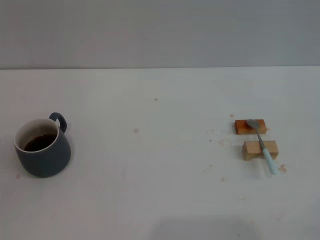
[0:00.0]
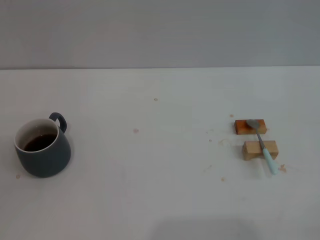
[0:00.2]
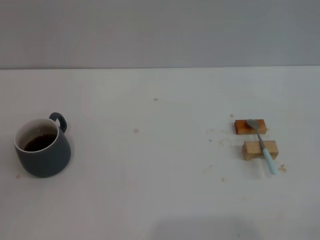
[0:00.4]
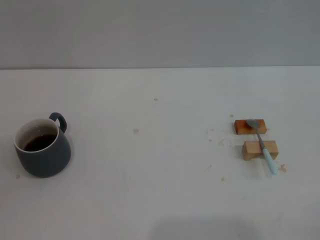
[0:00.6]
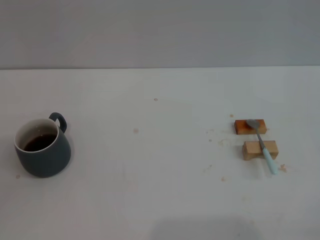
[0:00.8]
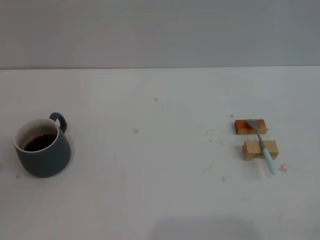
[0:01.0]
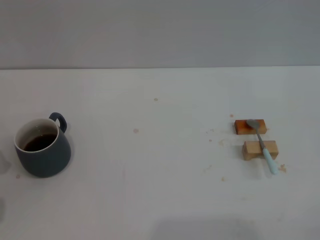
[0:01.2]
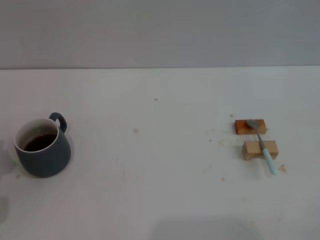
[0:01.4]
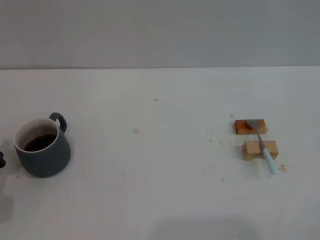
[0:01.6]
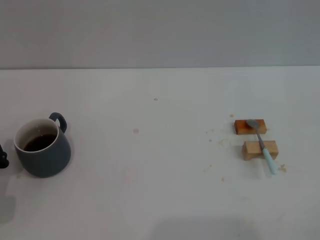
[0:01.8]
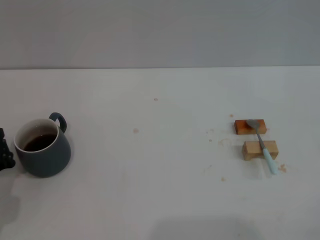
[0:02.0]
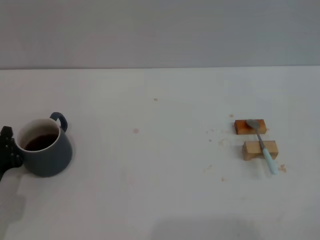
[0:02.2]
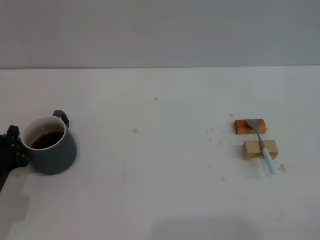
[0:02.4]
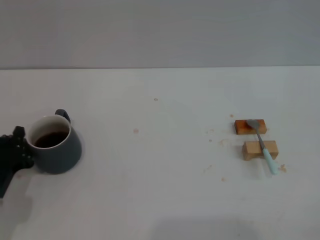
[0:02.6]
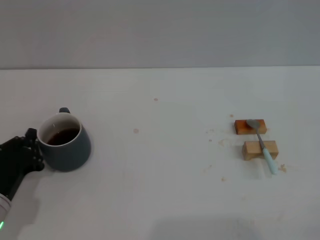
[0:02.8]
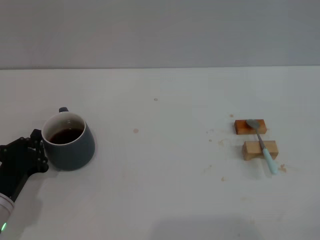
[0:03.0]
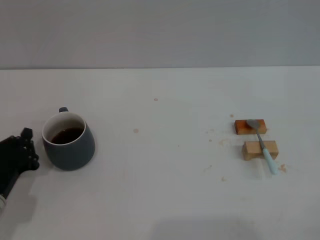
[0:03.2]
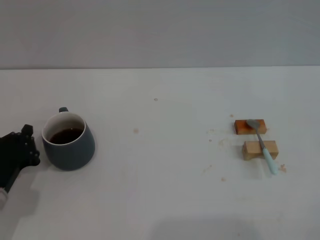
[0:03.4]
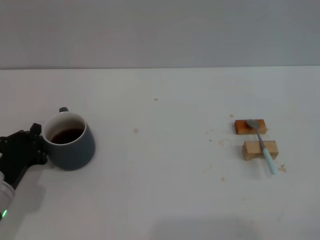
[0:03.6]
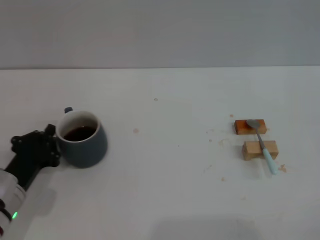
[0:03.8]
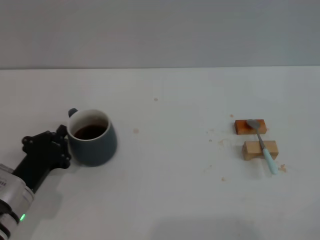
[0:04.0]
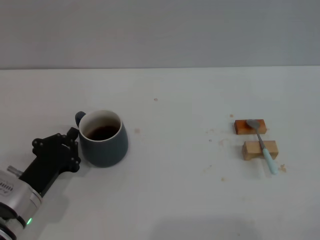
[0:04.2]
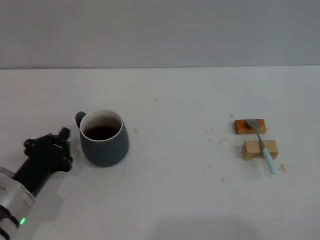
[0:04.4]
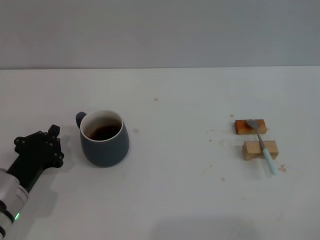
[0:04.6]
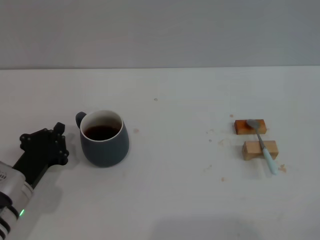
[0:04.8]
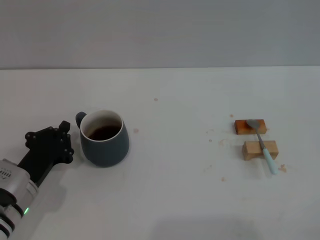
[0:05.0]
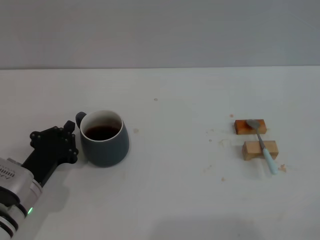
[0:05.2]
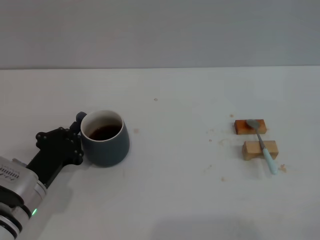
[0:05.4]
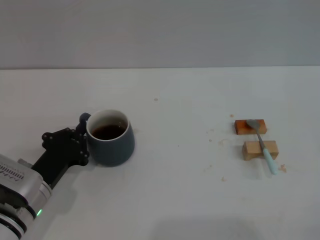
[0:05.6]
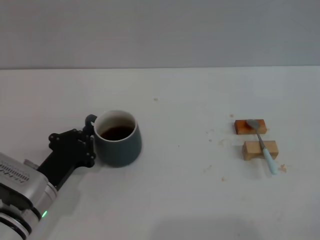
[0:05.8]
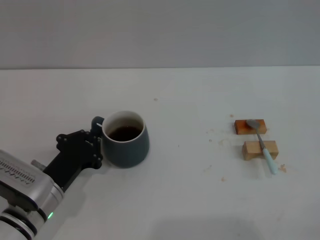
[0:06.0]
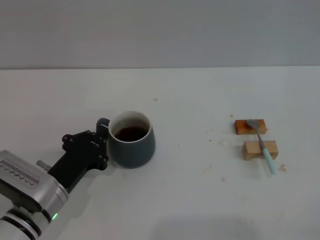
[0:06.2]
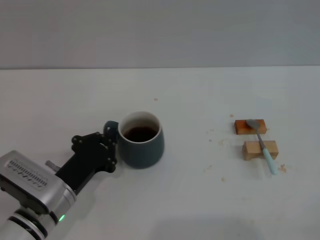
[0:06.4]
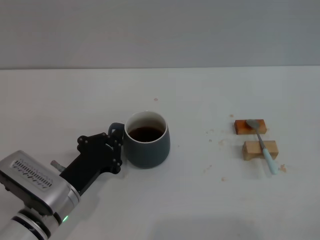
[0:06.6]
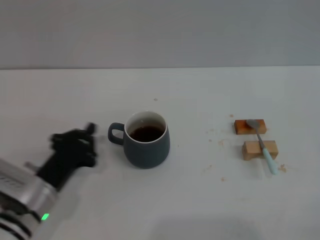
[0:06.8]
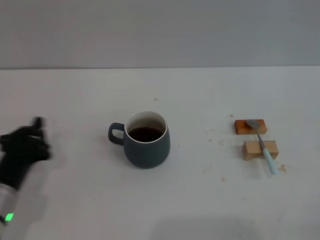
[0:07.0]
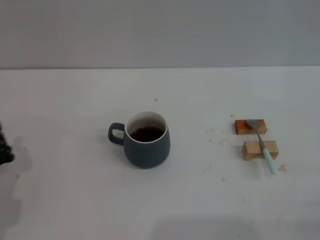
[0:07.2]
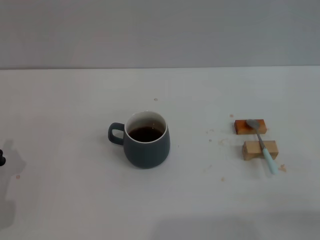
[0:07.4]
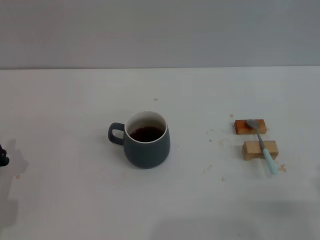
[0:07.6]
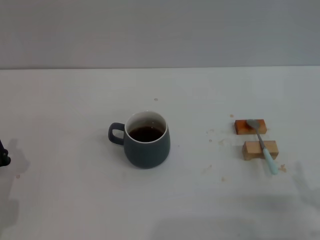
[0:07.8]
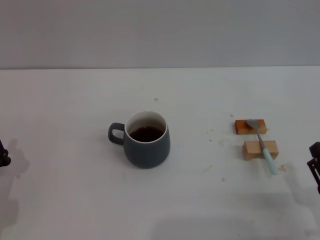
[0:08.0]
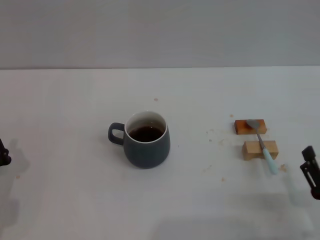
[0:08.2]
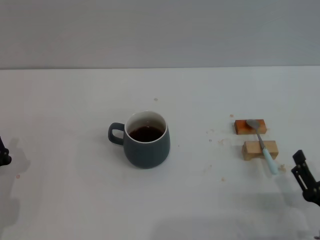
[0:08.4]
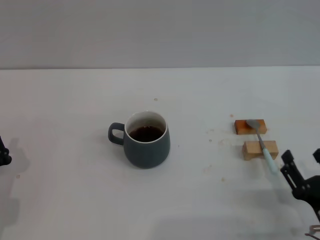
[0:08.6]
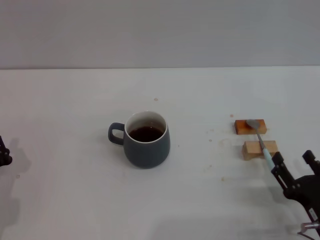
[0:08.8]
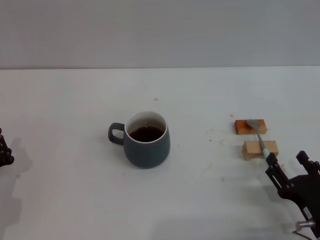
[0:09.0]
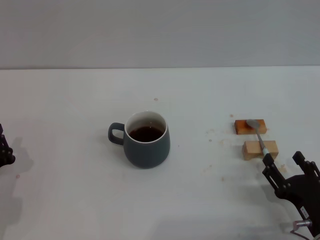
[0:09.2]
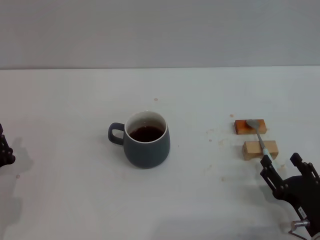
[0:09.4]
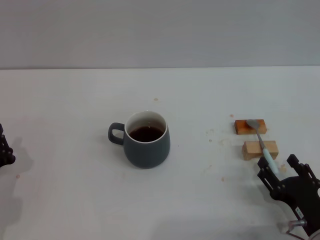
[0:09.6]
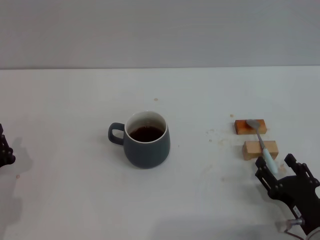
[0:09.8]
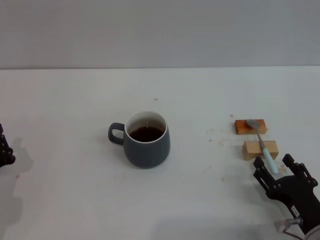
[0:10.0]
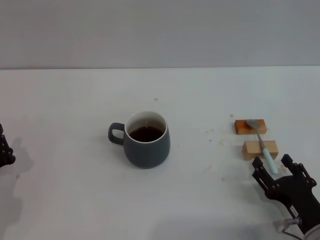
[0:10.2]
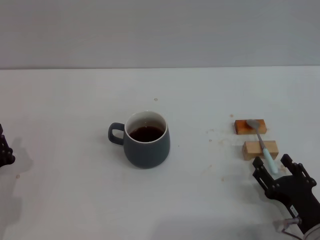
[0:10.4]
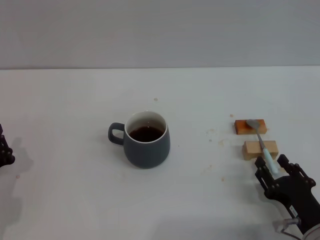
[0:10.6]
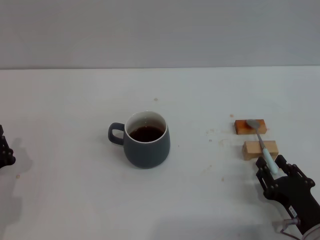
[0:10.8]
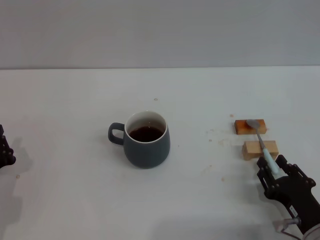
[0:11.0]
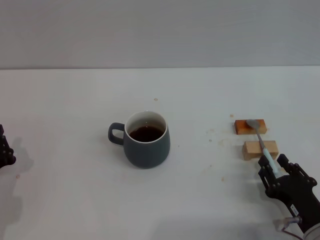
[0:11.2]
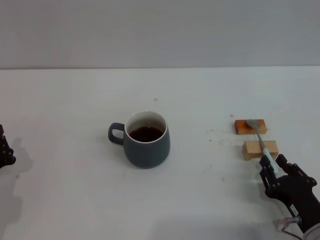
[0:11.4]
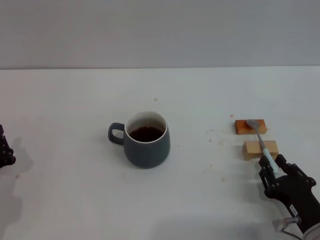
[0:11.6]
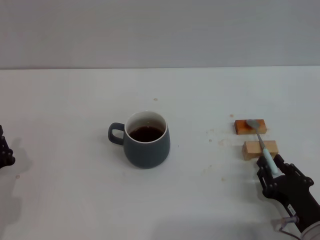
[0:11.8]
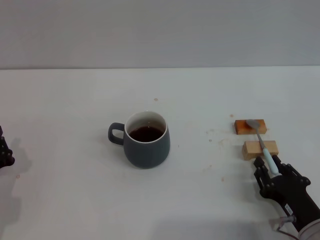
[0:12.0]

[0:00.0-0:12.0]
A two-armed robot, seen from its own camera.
Task of the whole recording: Move the grey cup to the center, lift the blue spoon, stir it three times in the cup, and put the spoon into the cup.
Step, 0:00.0 to 0:06.8: Move the cup with coffee to the center of view with the left gripper.
0:01.6 to 0:03.0: The grippers move only a little.
0:03.0 to 0:04.4: The grippers stay close to where they were, moving slightly.
0:04.4 to 0:06.0: The grippers make only small movements.
0:06.0 to 0:07.6: Both grippers move to the left, about 10 cm.
0:07.6 to 0:09.0: The right gripper changes place by roughly 5 cm.
0:09.0 to 0:10.4: The grippers stay close to where they were, moving slightly.
0:10.4 to 0:12.0: The right gripper closes.

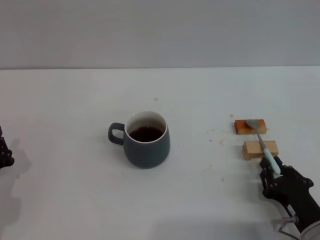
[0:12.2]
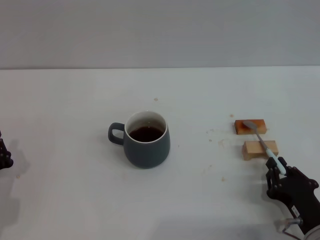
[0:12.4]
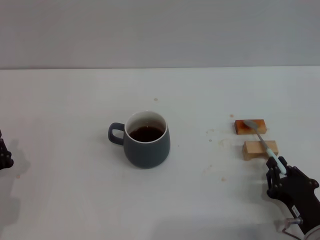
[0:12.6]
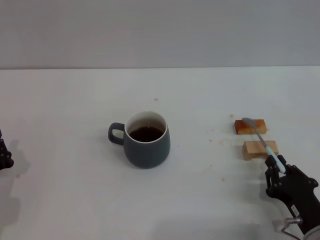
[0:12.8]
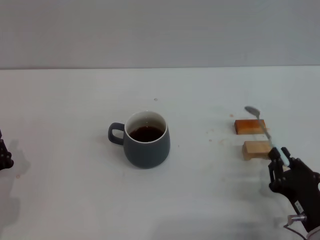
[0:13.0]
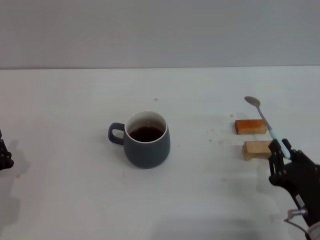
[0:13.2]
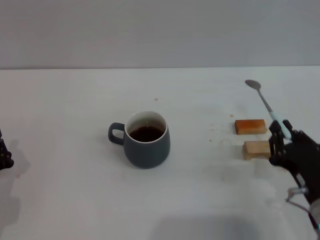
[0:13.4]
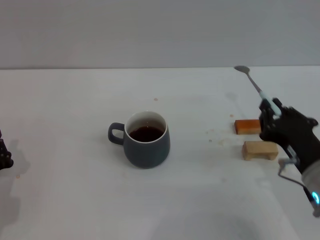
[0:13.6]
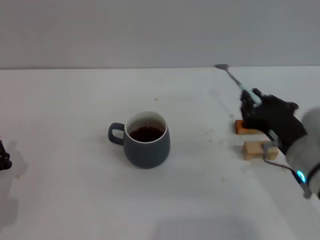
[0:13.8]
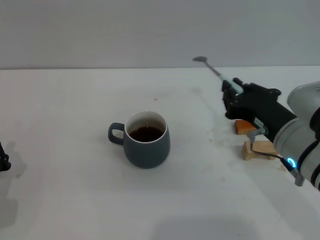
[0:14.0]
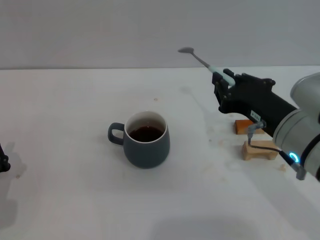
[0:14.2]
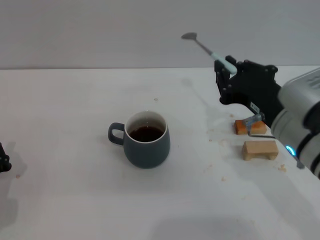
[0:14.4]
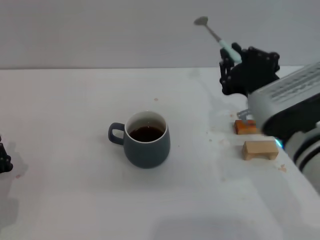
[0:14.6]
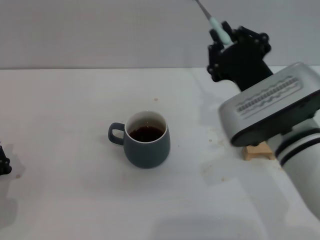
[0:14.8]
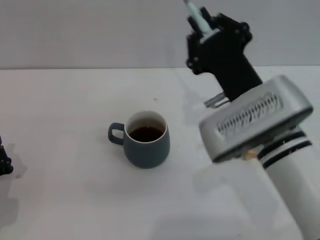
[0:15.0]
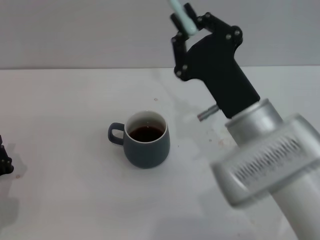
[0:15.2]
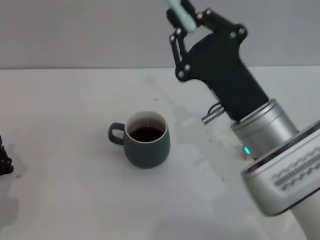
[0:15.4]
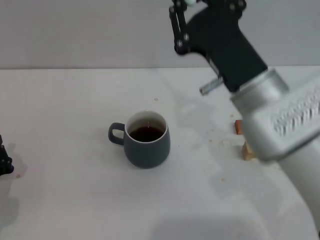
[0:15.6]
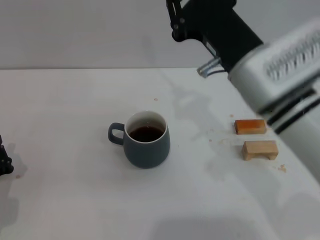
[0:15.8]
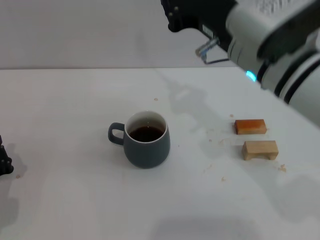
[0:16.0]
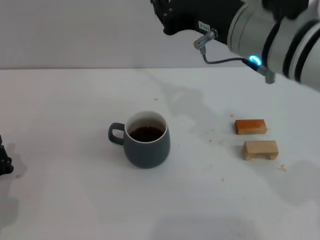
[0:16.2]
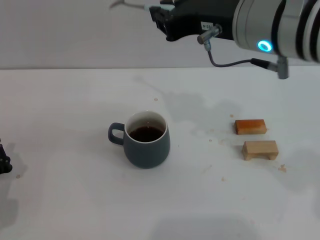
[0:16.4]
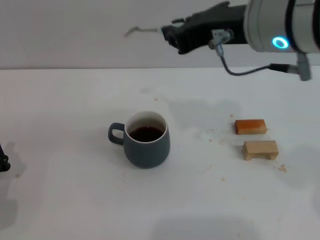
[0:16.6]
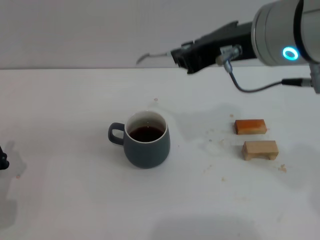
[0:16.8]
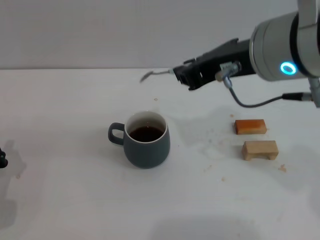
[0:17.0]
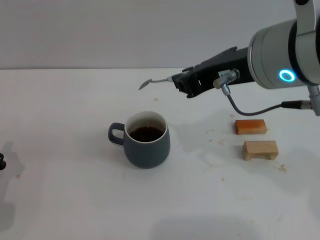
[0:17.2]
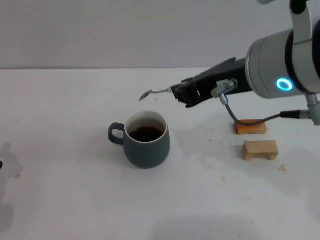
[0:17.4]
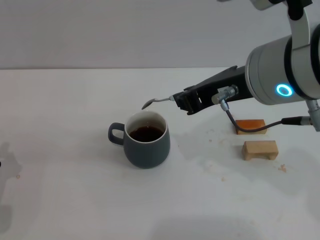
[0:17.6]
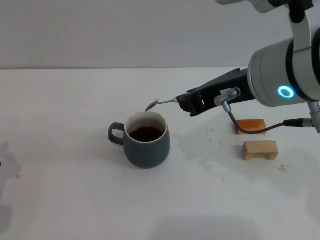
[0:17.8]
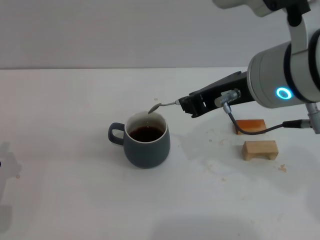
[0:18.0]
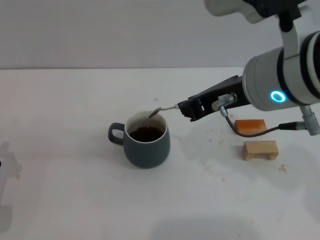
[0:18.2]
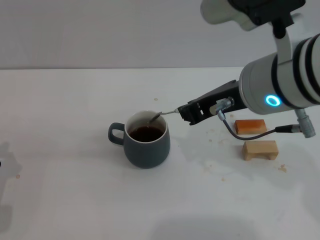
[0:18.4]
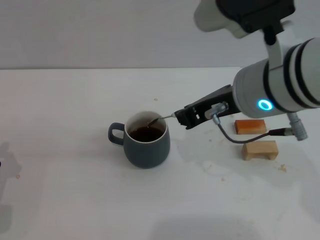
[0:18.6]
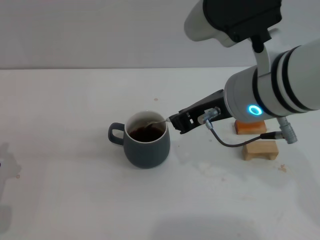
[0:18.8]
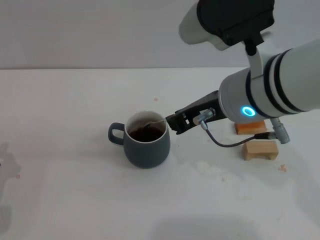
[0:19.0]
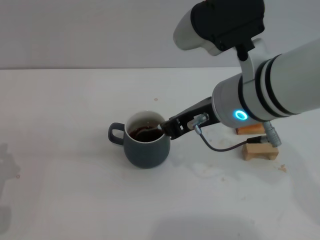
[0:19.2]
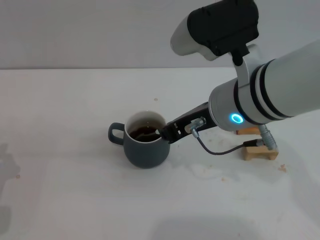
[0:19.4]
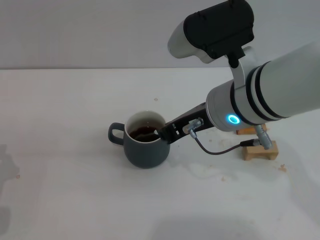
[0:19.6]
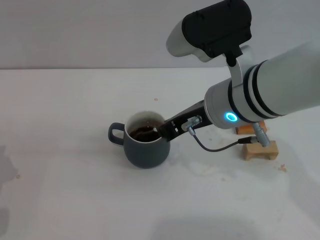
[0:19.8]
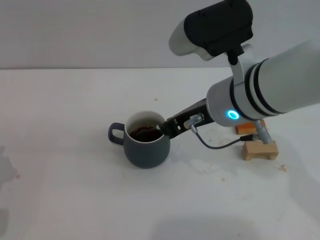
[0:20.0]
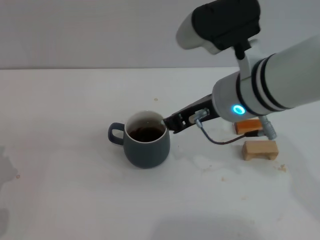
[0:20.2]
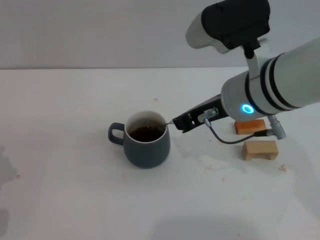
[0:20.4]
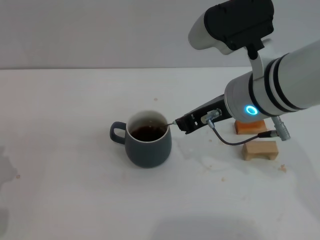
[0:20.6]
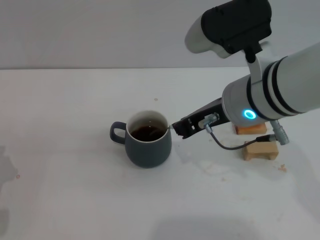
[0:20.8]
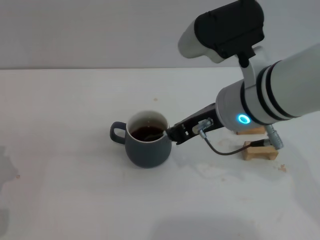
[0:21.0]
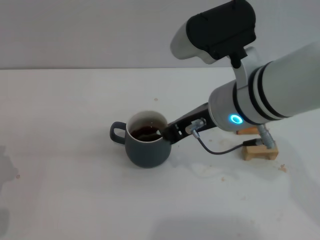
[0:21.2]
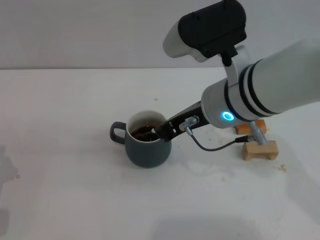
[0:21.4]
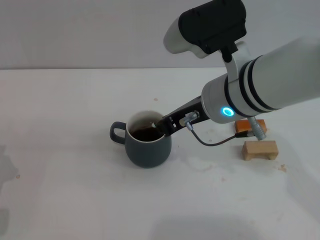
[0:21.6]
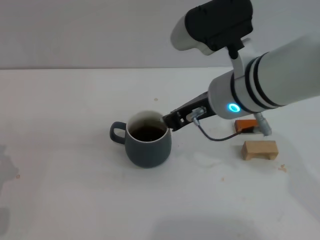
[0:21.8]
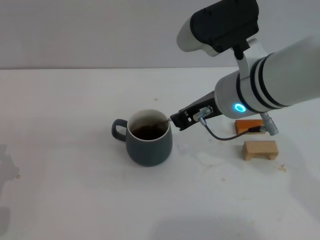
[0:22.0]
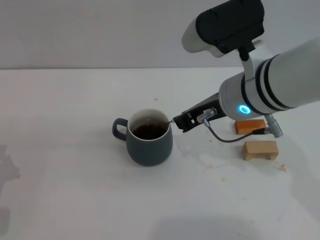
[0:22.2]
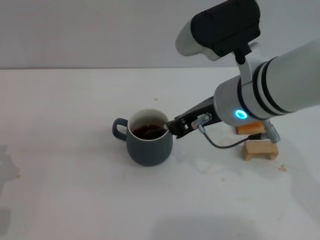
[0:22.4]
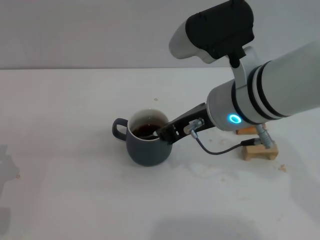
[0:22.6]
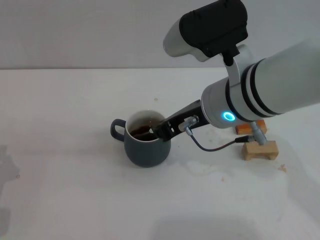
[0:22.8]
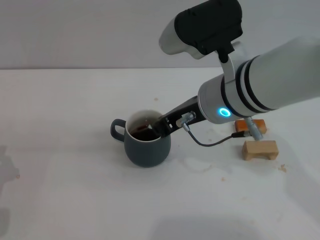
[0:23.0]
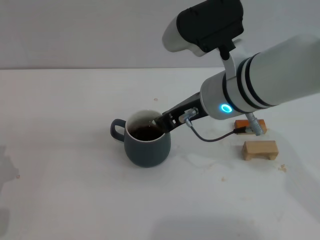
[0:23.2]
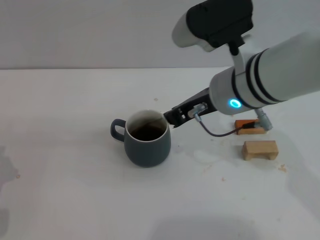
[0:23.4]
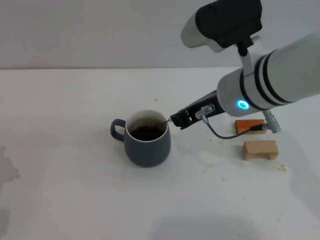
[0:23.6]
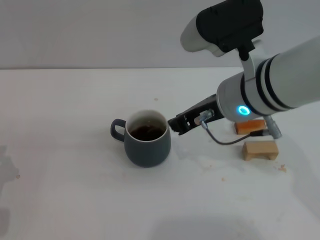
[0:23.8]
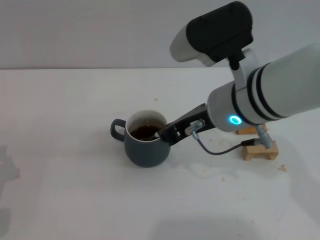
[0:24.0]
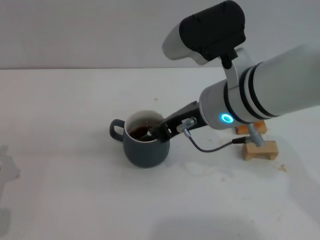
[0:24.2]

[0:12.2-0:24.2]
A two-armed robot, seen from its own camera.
Task of the whole recording: Move the grey cup to the center, lift the blue spoon, stir it three times in the cup, and put the spoon into the cup.
0:12.2 to 0:13.8: The right gripper moves upward and forward, about 15 cm.
0:13.8 to 0:15.2: The right gripper moves to the left, some 10 cm.
0:15.2 to 0:16.6: The right gripper heads upward, covering roughly 15 cm.
0:18.2 to 0:19.8: The right gripper moves downward, some 5 cm.
0:19.8 to 0:24.2: The grippers make only small movements.
